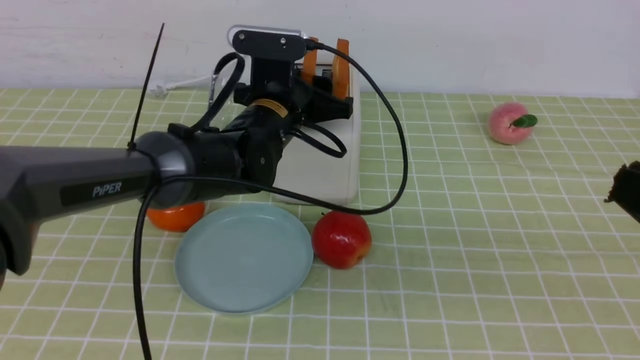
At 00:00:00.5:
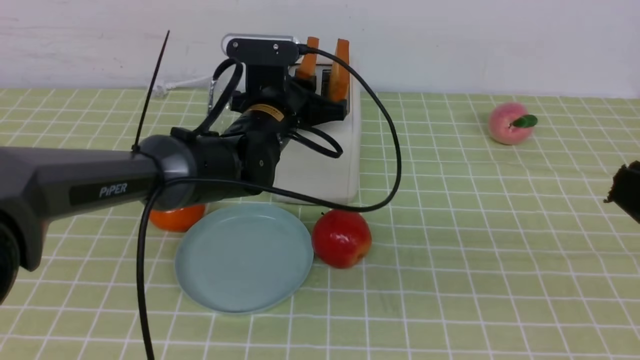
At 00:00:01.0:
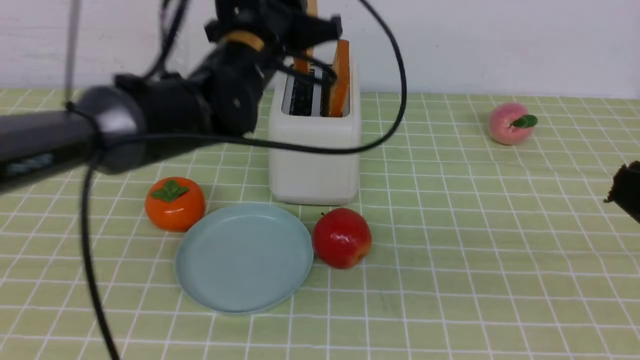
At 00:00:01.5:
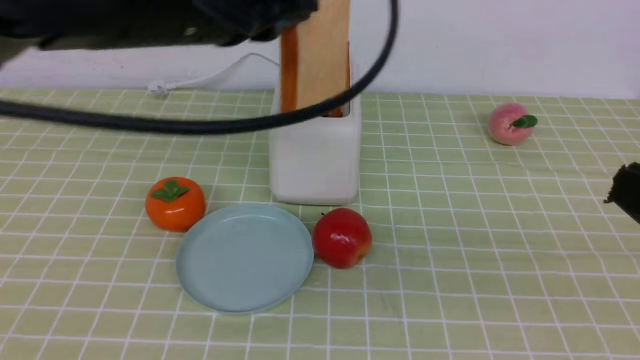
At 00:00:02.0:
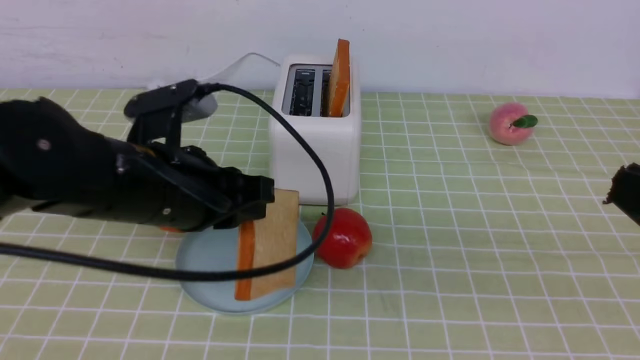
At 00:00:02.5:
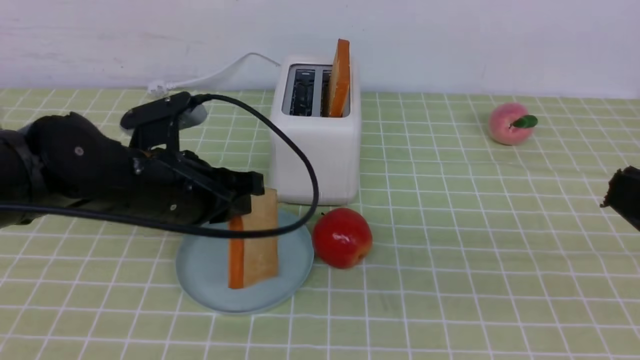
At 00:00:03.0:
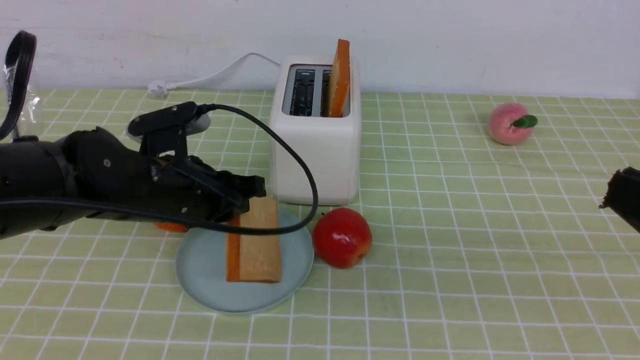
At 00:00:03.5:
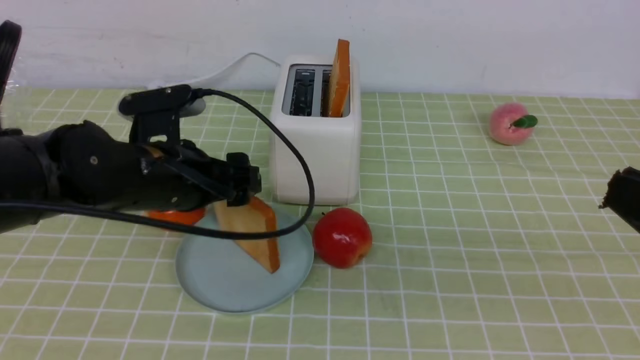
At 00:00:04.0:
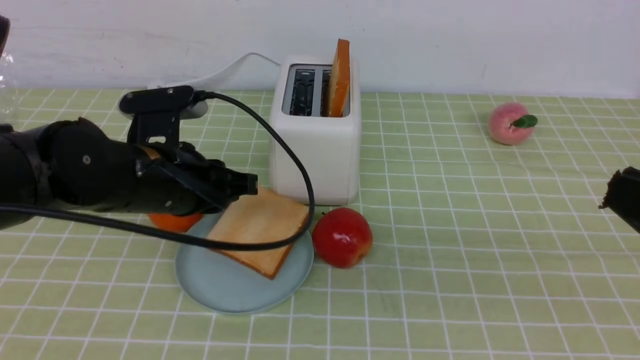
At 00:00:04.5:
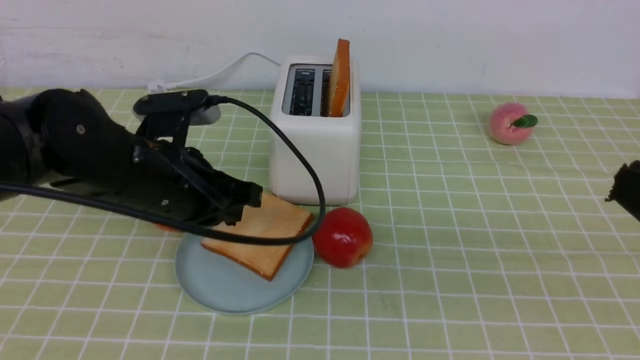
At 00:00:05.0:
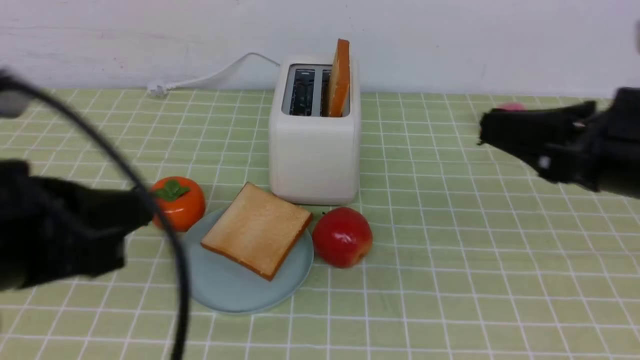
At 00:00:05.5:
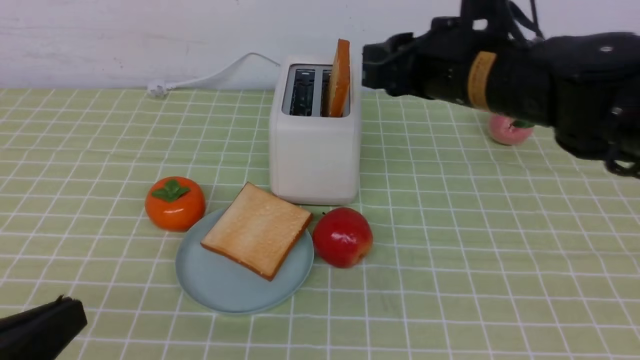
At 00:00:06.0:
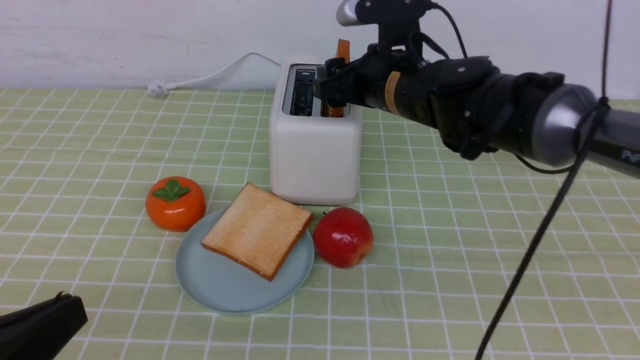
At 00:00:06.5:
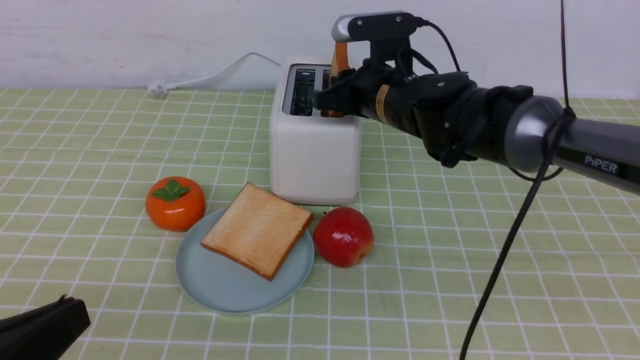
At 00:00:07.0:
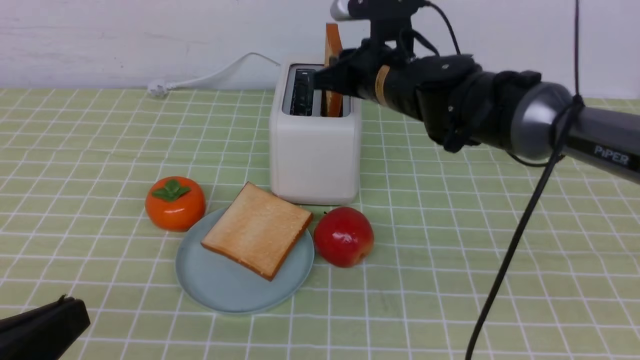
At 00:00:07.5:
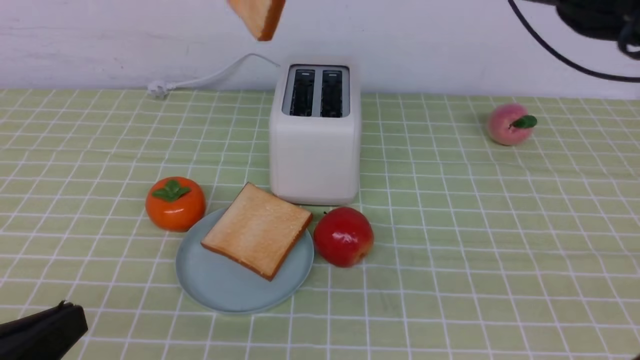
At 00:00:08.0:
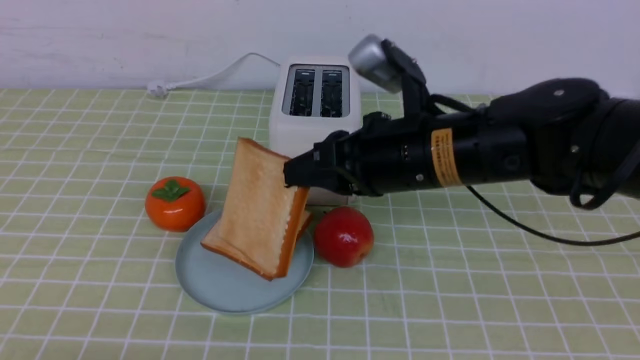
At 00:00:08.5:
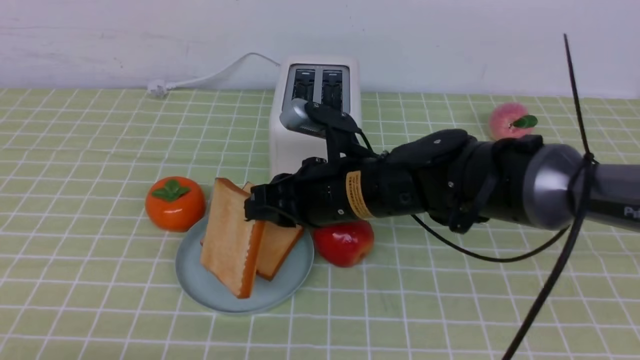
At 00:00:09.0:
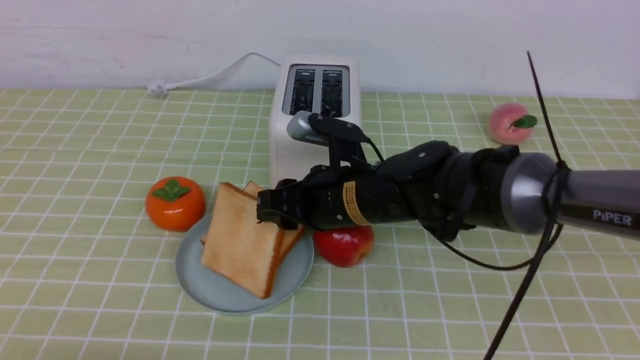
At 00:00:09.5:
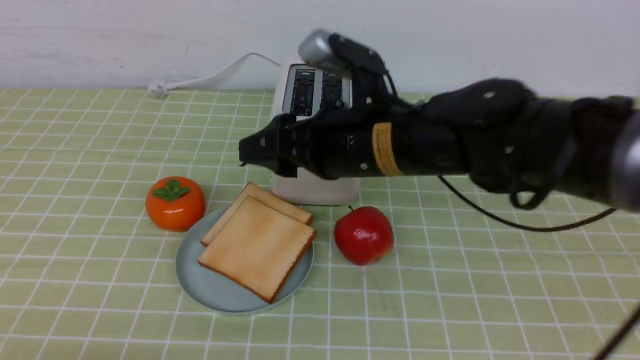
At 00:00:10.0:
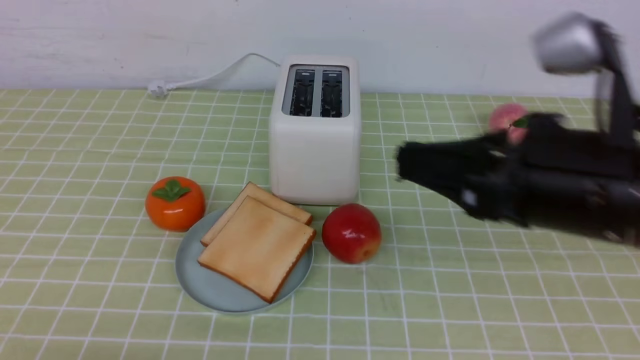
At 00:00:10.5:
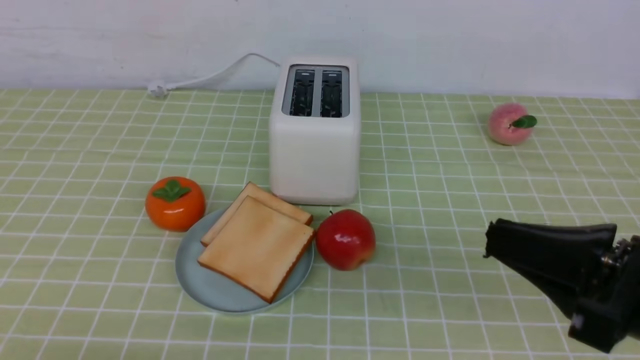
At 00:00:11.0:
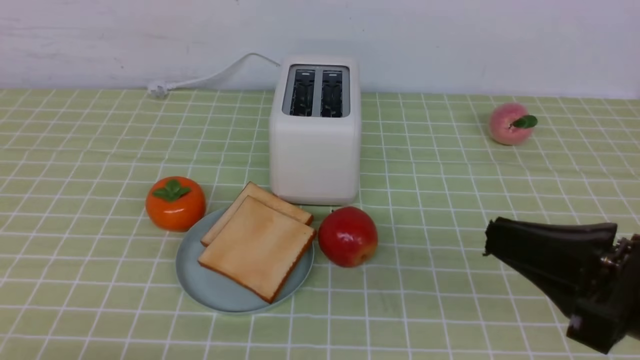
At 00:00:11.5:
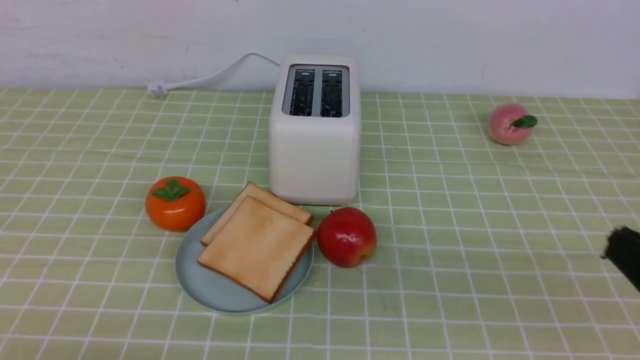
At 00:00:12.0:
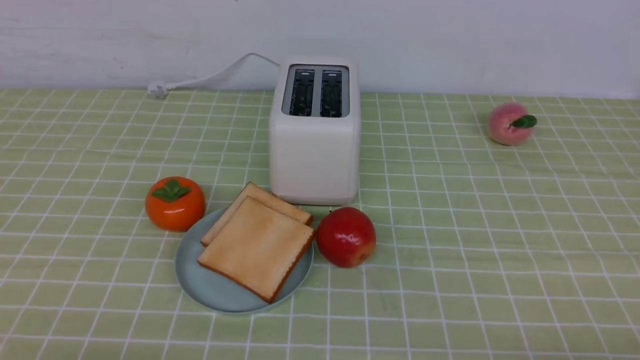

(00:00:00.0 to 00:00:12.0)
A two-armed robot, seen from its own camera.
Task of the whole recording: take toasted bread from bread machine on green coffee tablecloth place on plate.
Step, 00:00:01.5 - 00:00:04.0: use the left arm to put a slice of bread into the empty plate.
Step, 00:00:04.5 - 00:00:07.0: use the right arm to take out a slice of bread.
Step, 00:00:07.5 - 00:00:09.5: use the right arm to put a slice of bread into the plate.
00:00:00.0 - 00:00:02.0: The left gripper shifts some 15 cm backward and to the left, and closes up.
00:00:02.0 - 00:00:04.0: The left gripper ends up some 5 cm from where it was, and opens, then closes once more.
00:00:04.0 - 00:00:06.0: The right gripper goes approximately 35 cm forward and to the left, and opens. The left gripper heads backward, covering about 25 cm.
00:00:06.0 - 00:00:08.0: The right gripper is displaced backward by roughly 10 cm, reaches about 15 cm upward, then returns, and closes up.
00:00:08.0 - 00:00:10.0: The right gripper moves backward and to the right, roughly 15 cm, and opens, then closes again.
00:00:10.0 - 00:00:12.0: The right gripper travels to the right, downward and backward by about 25 cm.
